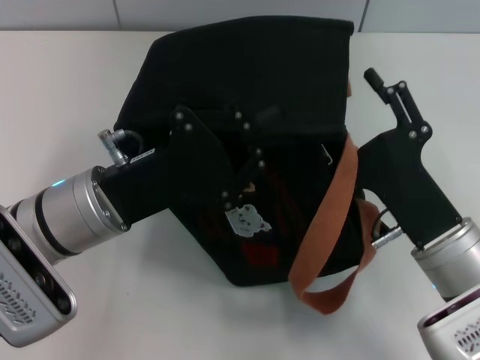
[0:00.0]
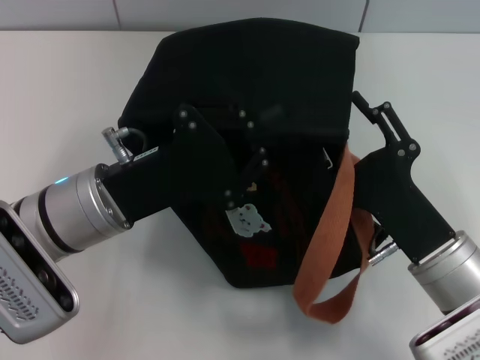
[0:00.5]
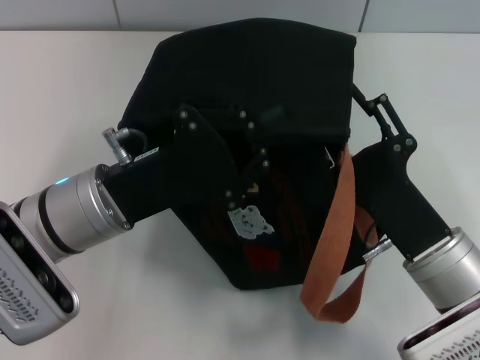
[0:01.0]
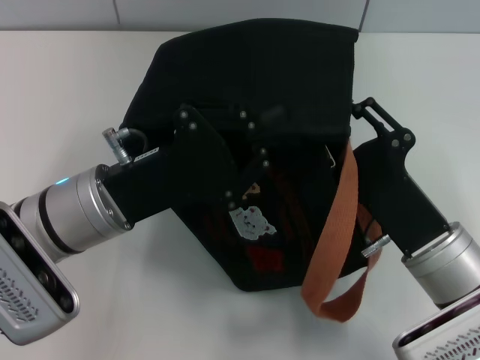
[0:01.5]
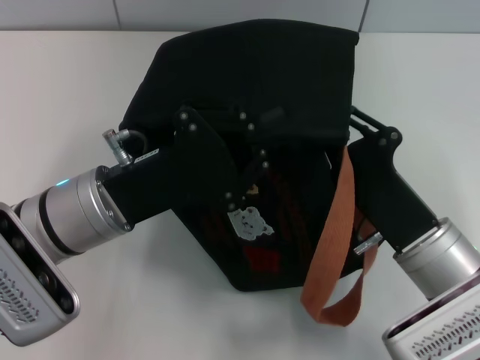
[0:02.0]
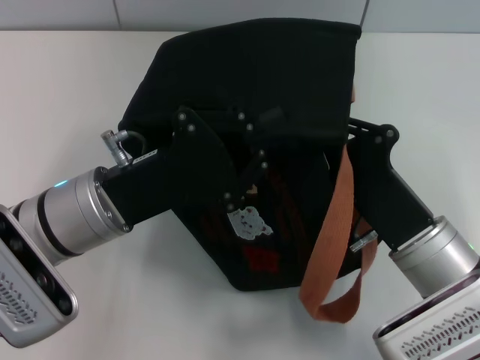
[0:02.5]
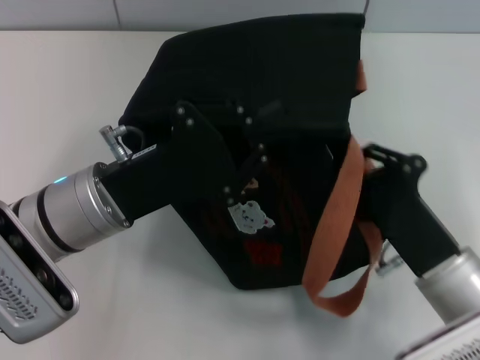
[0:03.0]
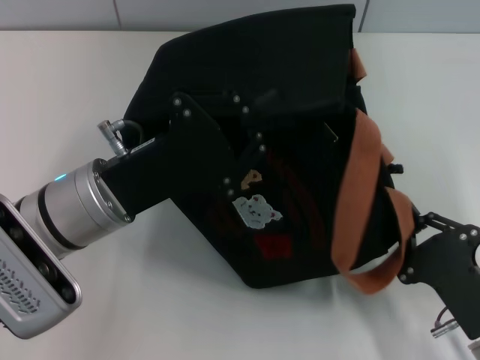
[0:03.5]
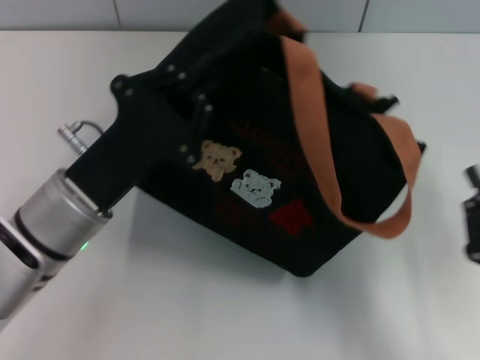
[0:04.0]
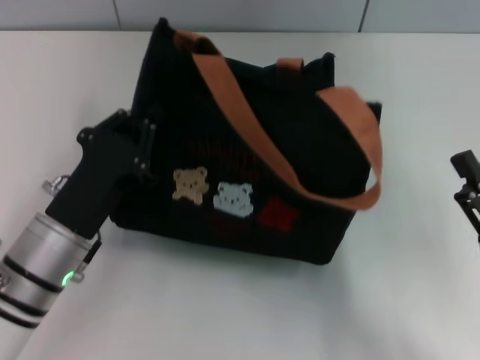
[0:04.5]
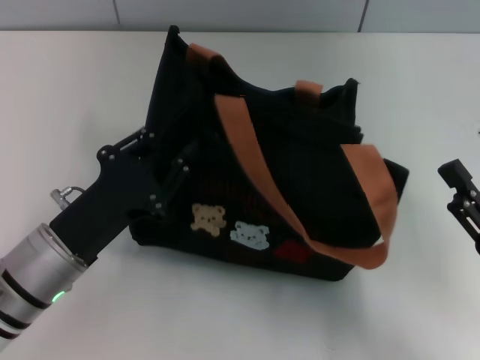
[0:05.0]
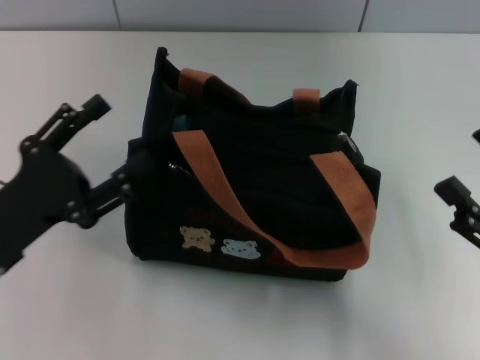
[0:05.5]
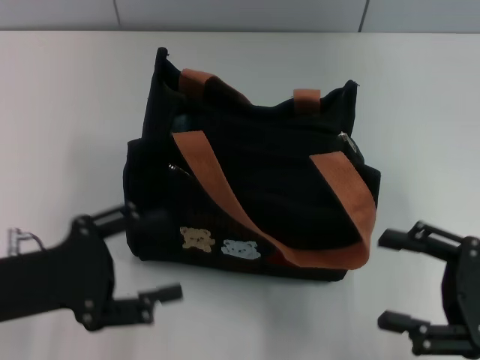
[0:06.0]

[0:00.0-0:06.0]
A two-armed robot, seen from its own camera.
Step, 0:00.0 to 0:04.0: Pull open the zipper with your right hand.
Step, 0:04.5 to 0:05.5: Grab the bag with your left hand.
0:00.0 to 0:02.0: The right gripper closes.
0:02.0 to 0:04.0: The right gripper moves to the right and backward, about 15 cm, and closes.
0:04.0 to 0:06.0: The right gripper goes some 5 cm forward, and opens; the left gripper heads to the left, covering about 10 cm, and opens.
